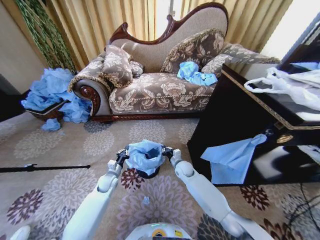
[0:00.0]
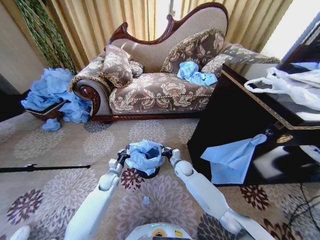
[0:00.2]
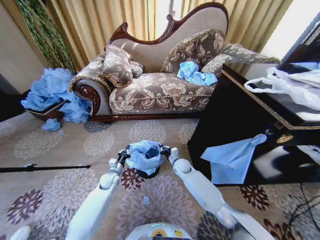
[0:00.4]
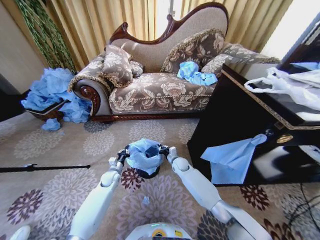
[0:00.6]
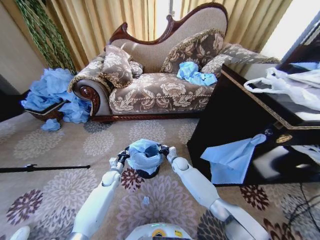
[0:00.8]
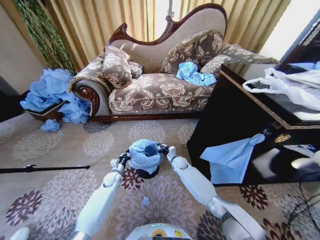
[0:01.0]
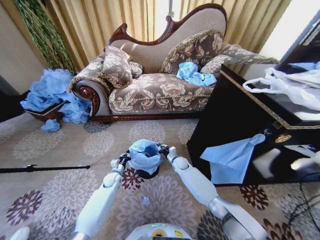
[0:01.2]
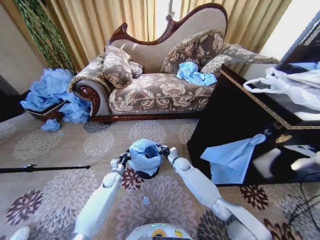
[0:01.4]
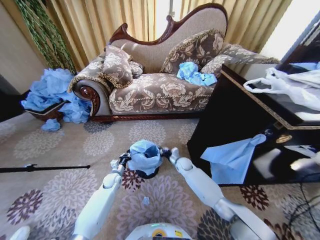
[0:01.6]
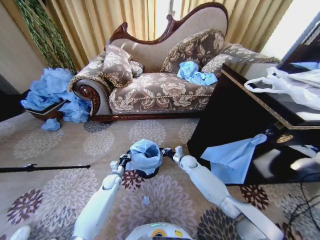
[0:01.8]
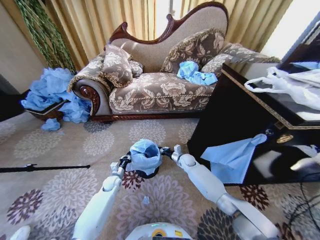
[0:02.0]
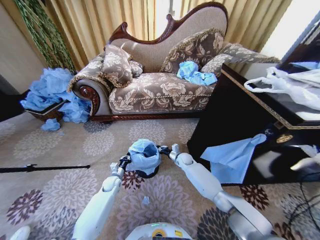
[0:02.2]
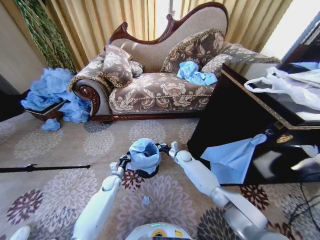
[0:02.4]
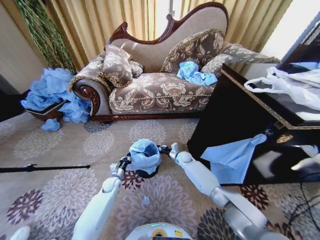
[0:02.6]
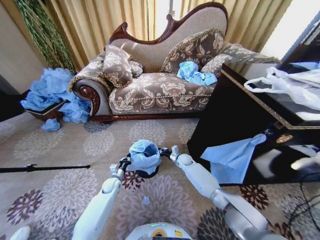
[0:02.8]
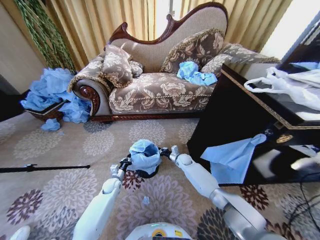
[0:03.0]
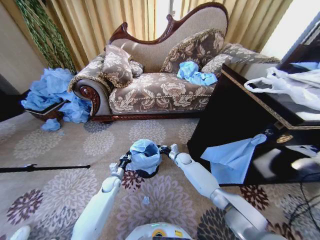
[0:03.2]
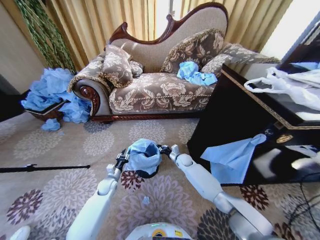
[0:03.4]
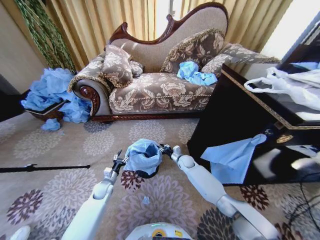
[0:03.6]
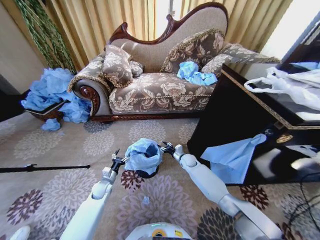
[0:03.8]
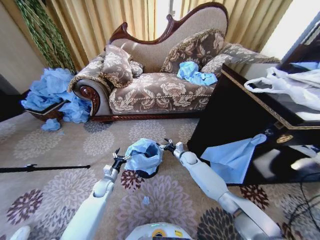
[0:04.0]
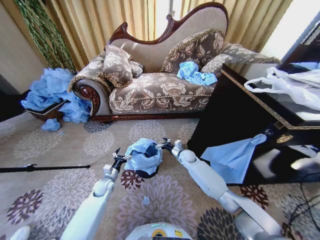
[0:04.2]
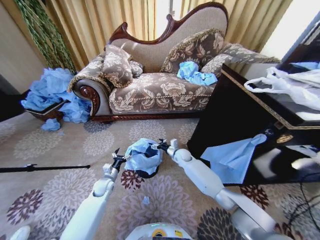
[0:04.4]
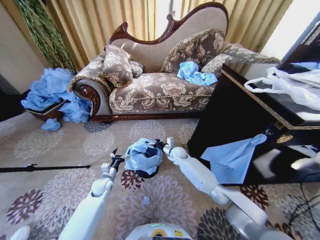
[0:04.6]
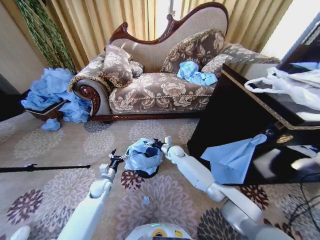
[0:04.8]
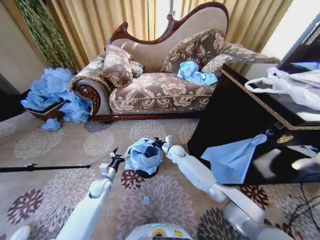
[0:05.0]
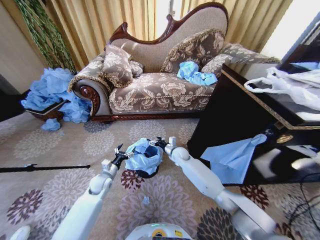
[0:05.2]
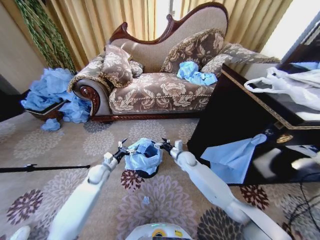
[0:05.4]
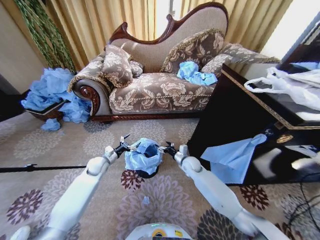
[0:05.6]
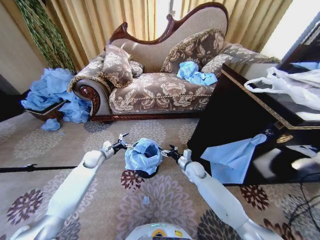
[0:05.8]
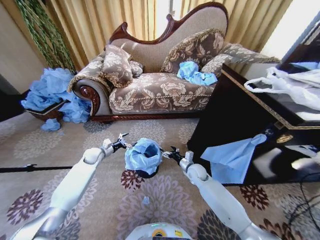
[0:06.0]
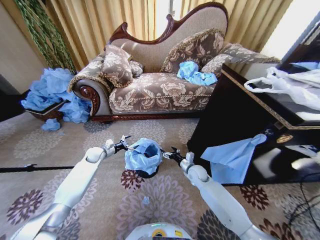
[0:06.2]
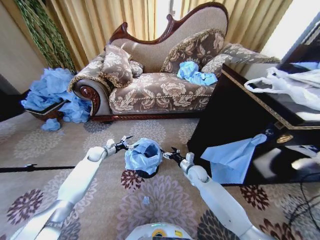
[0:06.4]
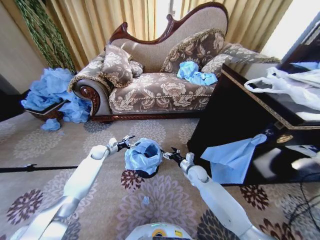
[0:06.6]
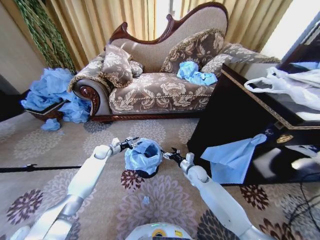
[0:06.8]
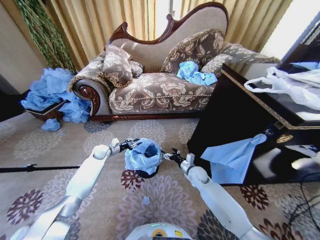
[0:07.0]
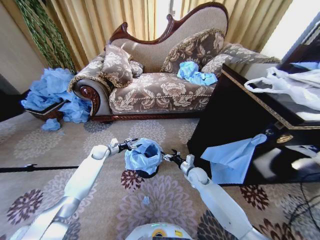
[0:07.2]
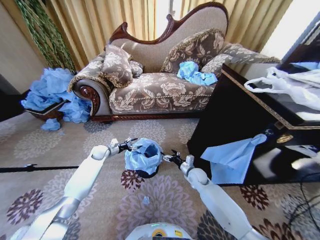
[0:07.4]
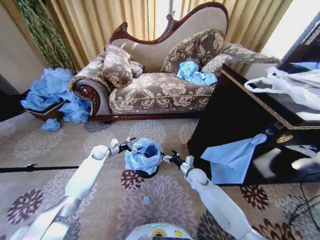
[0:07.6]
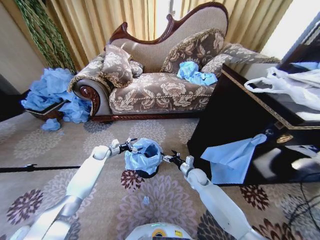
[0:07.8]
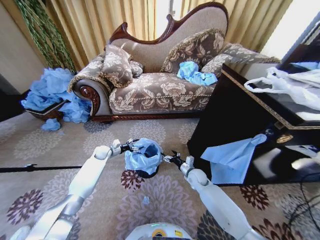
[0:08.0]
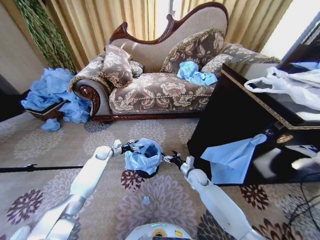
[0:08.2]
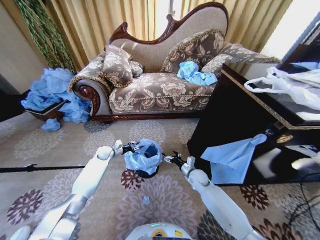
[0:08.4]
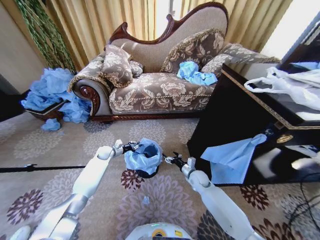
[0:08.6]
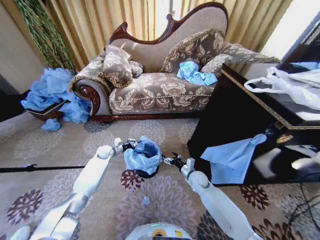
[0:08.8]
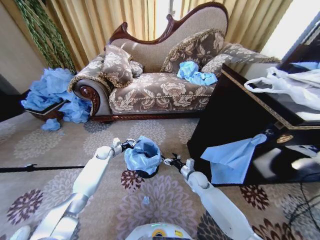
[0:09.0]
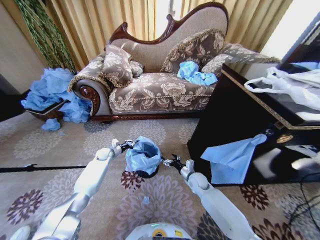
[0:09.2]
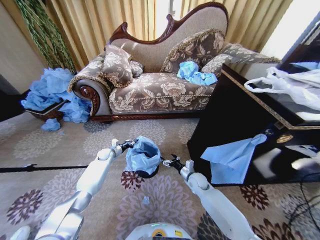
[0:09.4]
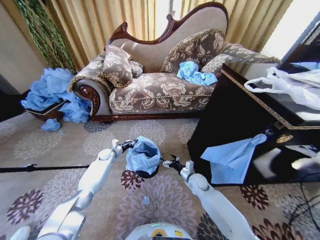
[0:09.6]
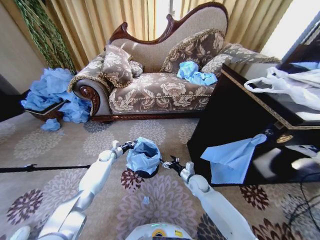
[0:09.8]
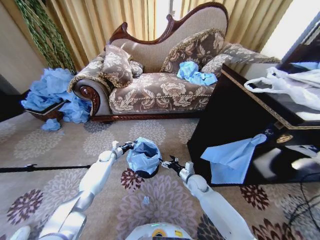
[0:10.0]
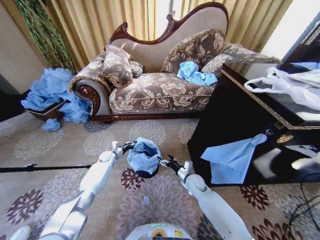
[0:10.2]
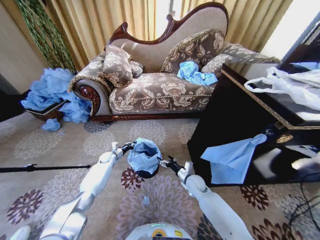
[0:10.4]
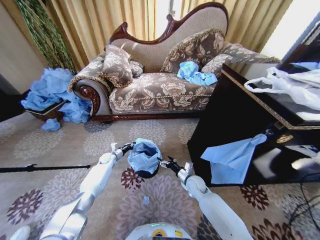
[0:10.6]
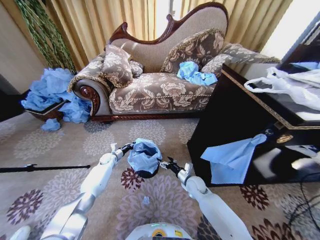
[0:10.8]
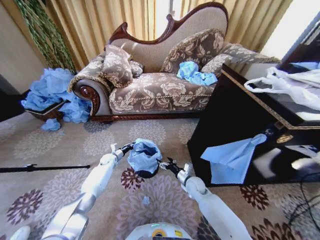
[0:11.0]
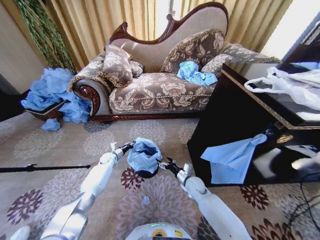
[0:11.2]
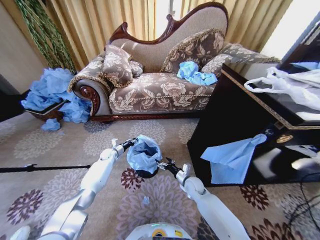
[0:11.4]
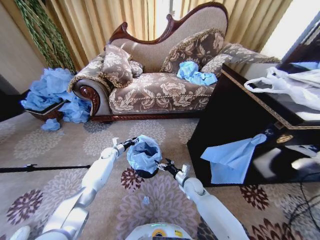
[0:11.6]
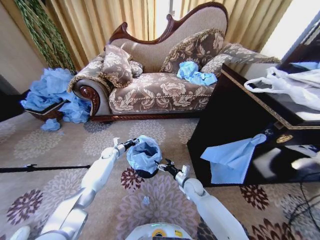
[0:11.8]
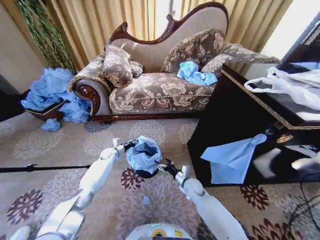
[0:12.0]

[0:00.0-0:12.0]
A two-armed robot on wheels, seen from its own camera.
Task of the whole recording: Place a garbage bag over the trash bin.
0:00.0 to 0:01.6: The left gripper moves some 5 cm, while the right gripper moves some 5 cm.
0:01.6 to 0:03.0: There are only small adjustments of the grippers.
0:03.0 to 0:04.4: The left gripper ends up about 5 cm from where it was, and opens up; the right gripper is displaced upward by some 5 cm, and opens.
0:04.4 to 0:06.0: The left gripper shifts about 20 cm forward, upward and to the left. Meanwhile the right gripper is displaced backward and to the right by about 10 cm.
0:06.0 to 0:07.6: The left gripper closes, then opens again.
0:07.6 to 0:09.0: The left gripper closes up.
0:09.0 to 0:10.4: The left gripper goes some 5 cm downward.
0:10.4 to 0:12.0: The grippers stay close to where they were, moving slightly.

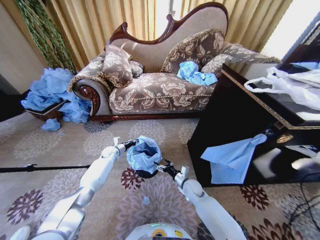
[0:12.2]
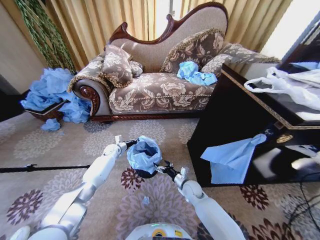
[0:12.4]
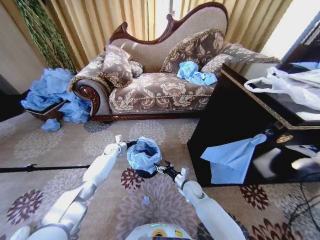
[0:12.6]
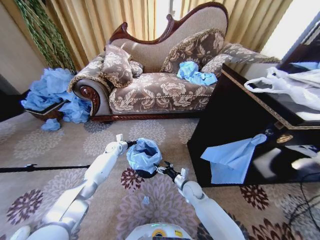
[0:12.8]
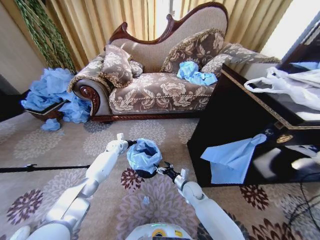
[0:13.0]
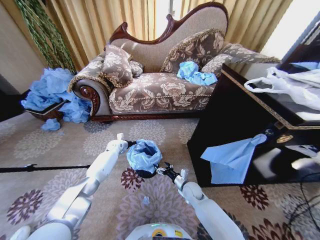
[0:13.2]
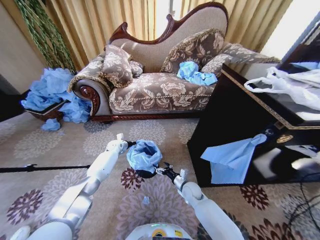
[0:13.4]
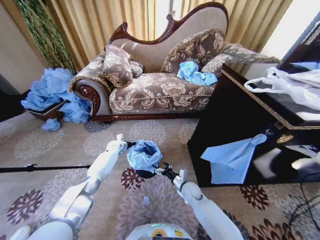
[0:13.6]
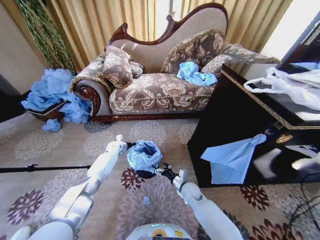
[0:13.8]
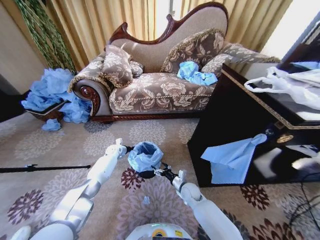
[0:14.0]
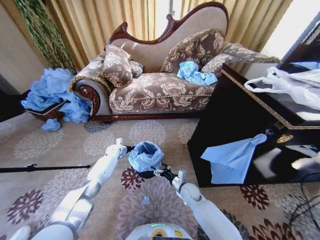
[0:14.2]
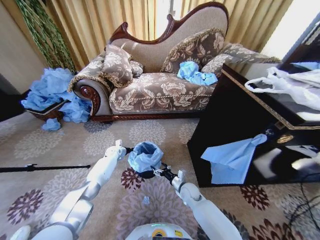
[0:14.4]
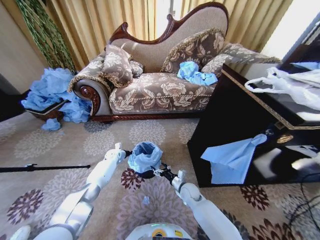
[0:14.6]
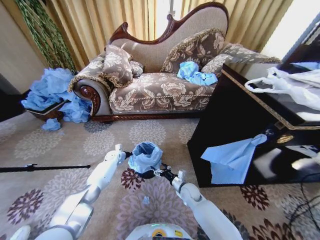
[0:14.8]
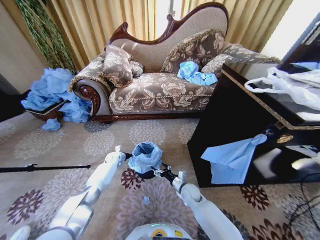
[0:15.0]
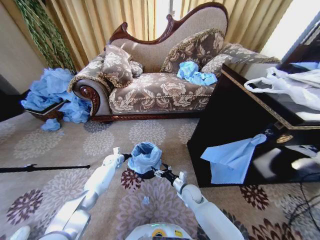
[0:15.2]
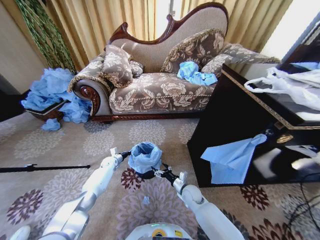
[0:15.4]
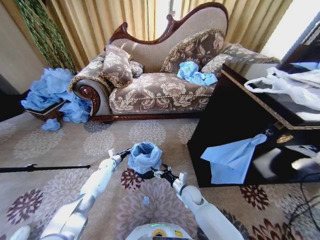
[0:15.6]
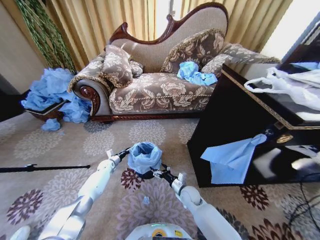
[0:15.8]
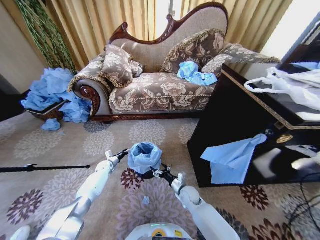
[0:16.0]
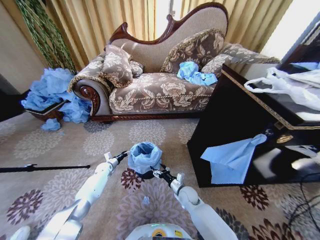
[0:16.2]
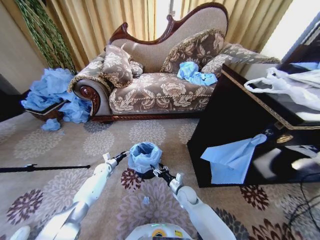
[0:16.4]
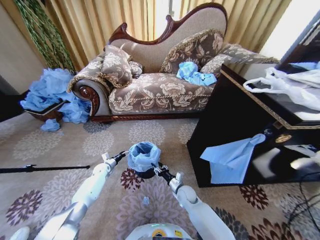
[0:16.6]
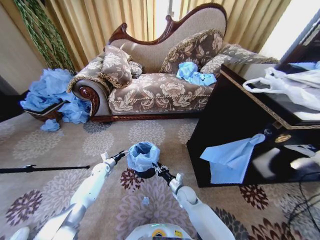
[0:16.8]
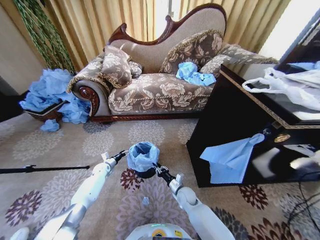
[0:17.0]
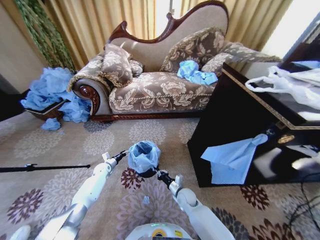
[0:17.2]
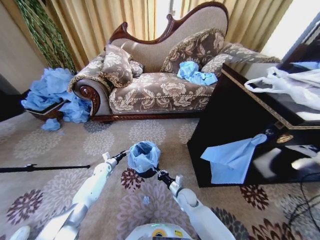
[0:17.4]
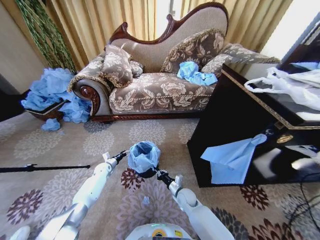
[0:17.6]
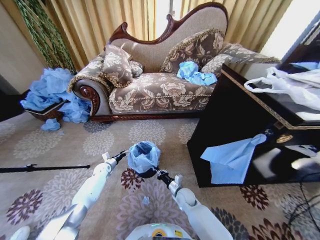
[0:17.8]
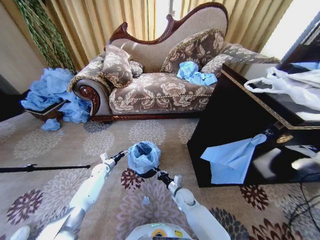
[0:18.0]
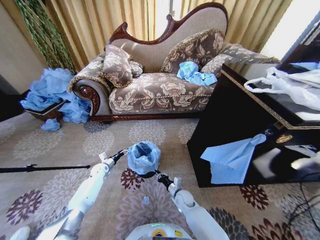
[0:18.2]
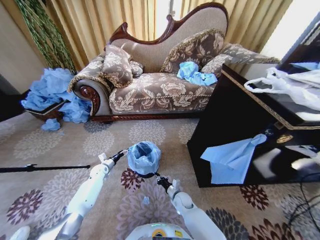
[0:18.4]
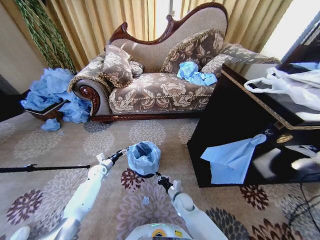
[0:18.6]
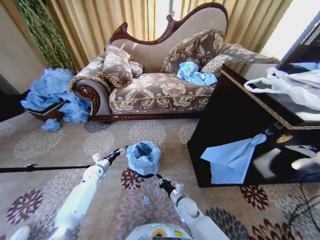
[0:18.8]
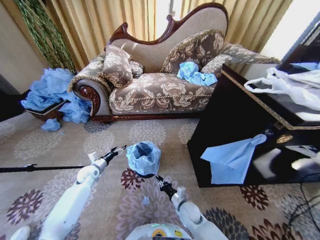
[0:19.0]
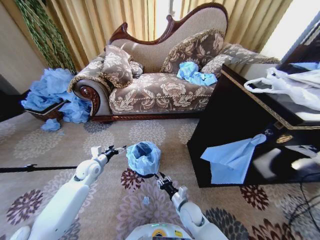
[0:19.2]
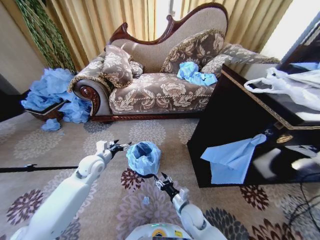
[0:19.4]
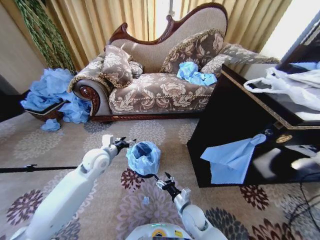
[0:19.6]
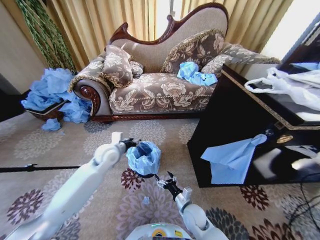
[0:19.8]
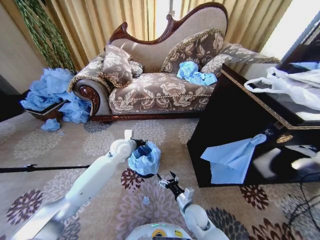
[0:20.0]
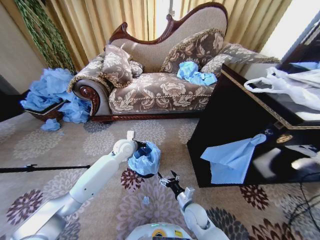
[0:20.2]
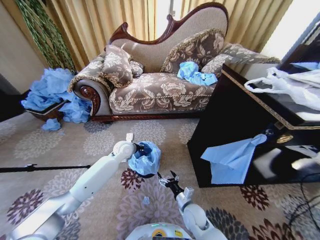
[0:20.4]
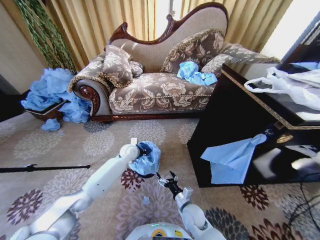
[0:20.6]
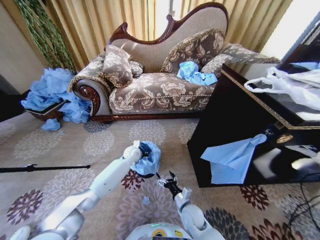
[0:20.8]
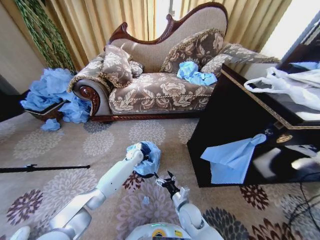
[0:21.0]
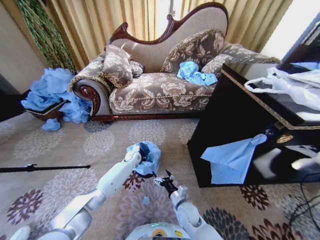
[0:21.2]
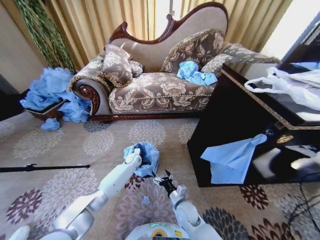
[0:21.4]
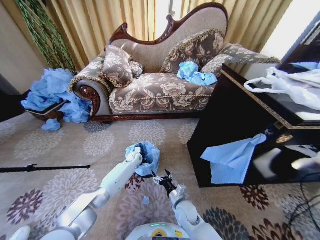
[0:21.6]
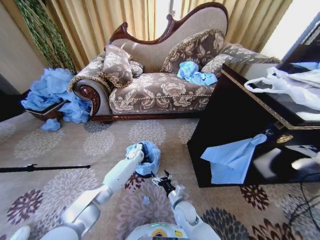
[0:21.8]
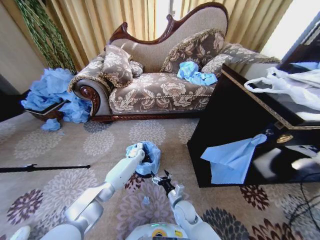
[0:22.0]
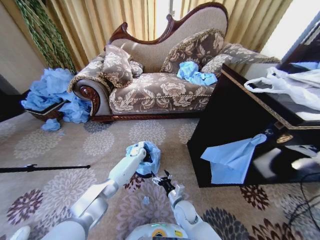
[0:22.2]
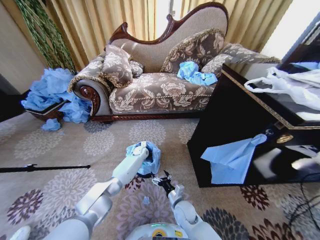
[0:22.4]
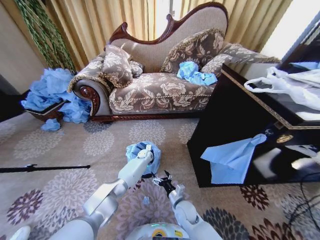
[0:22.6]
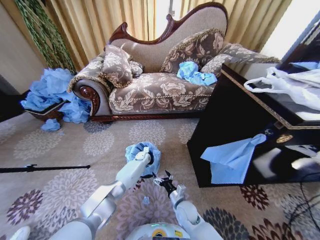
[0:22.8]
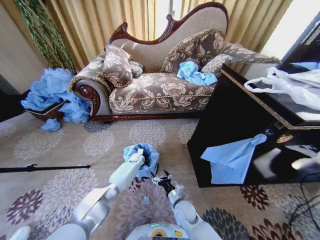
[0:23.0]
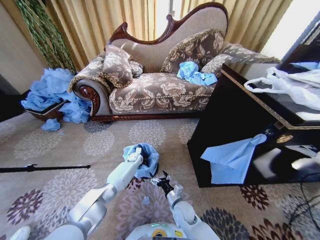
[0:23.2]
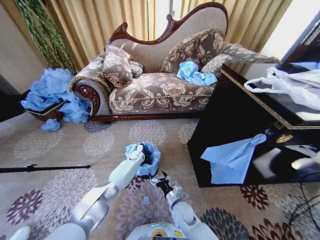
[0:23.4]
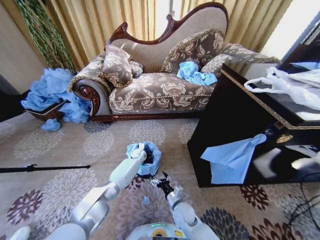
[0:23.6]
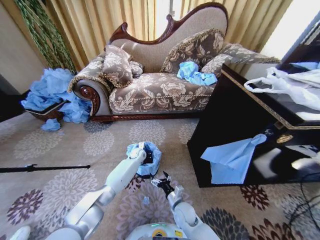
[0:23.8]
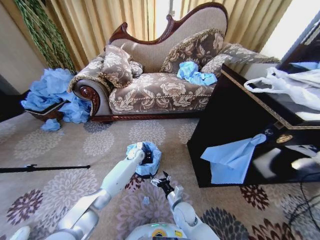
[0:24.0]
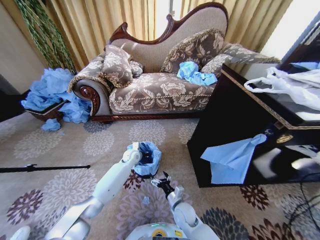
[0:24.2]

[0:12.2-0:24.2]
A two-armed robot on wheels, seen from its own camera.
Task of the whole recording: Place a garbage bag over the trash bin.
0:13.8 to 0:15.2: The left gripper moves downward and backward, roughly 10 cm.
0:15.2 to 0:16.6: The right gripper closes its fingers. Meanwhile the left gripper travels to the left and backward by approximately 10 cm, and opens.
0:16.6 to 0:18.2: The right gripper closes up.
0:18.2 to 0:19.8: The right gripper shifts some 10 cm backward and upward, and opens its fingers, while the left gripper shifts about 30 cm upward and to the right, and closes its fingers.
0:19.8 to 0:21.2: The left gripper heads downward and forward, covering about 20 cm, and closes.
0:21.2 to 0:22.6: The left gripper goes approximately 5 cm to the right.
0:22.6 to 0:24.2: The left gripper goes roughly 10 cm upward, to the left and backward.
